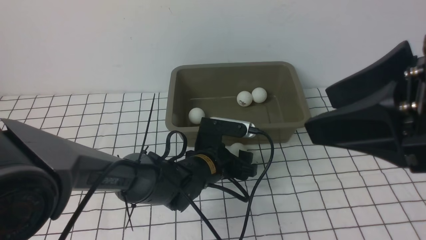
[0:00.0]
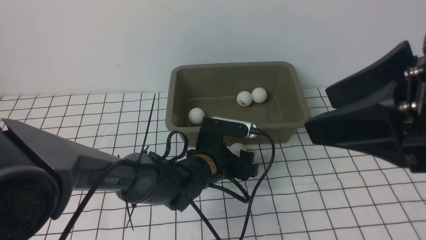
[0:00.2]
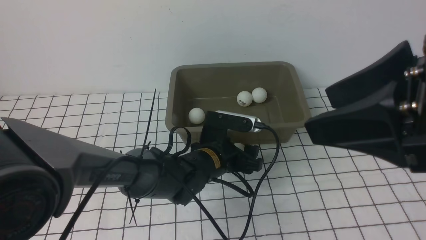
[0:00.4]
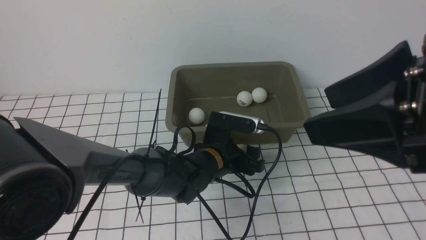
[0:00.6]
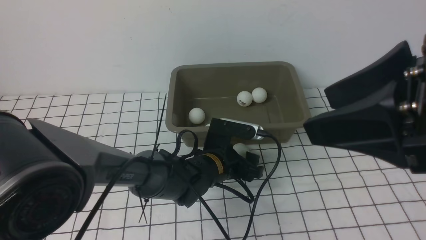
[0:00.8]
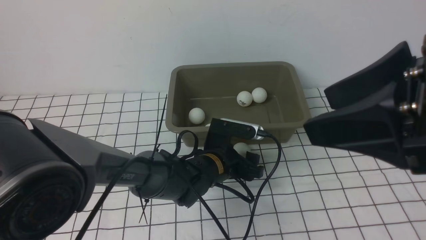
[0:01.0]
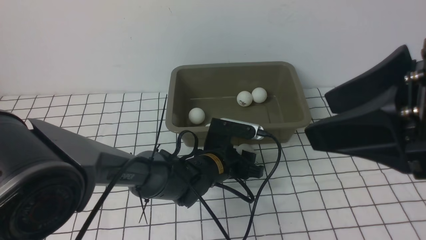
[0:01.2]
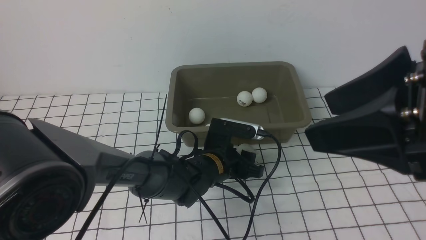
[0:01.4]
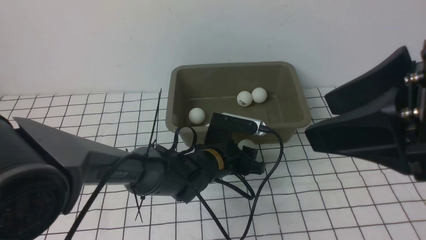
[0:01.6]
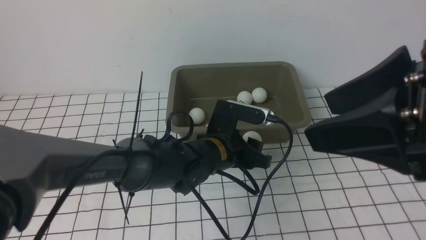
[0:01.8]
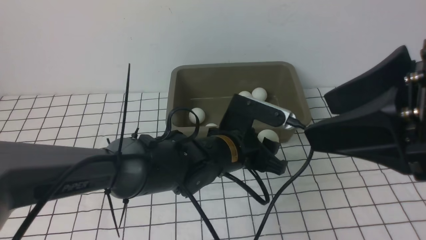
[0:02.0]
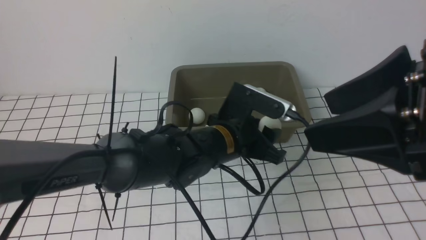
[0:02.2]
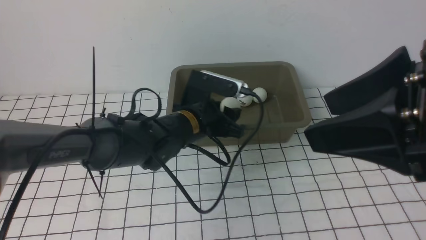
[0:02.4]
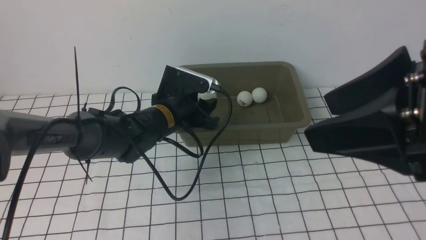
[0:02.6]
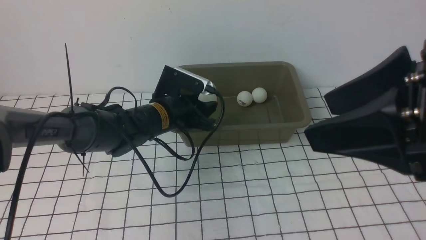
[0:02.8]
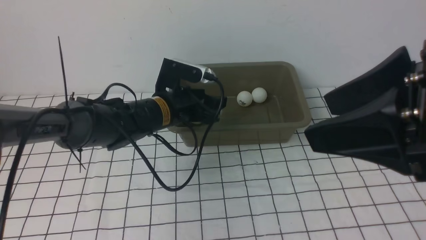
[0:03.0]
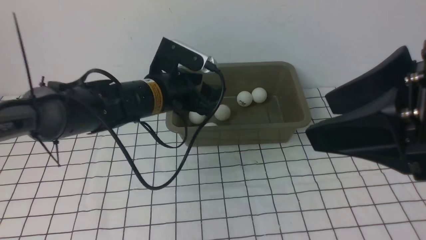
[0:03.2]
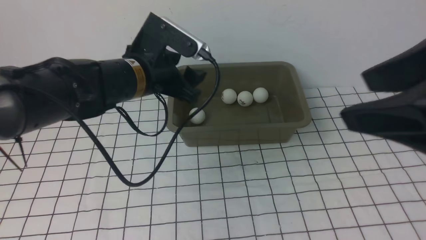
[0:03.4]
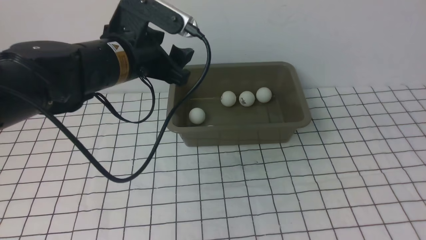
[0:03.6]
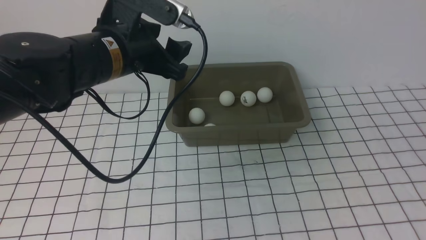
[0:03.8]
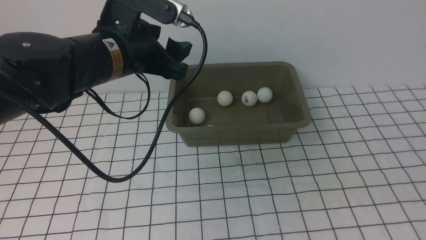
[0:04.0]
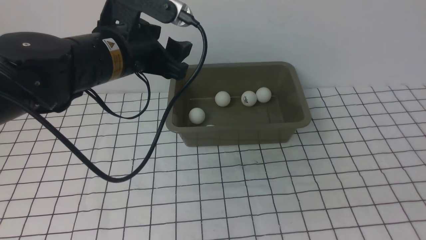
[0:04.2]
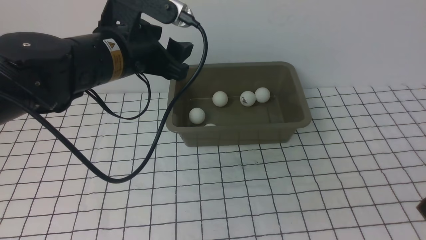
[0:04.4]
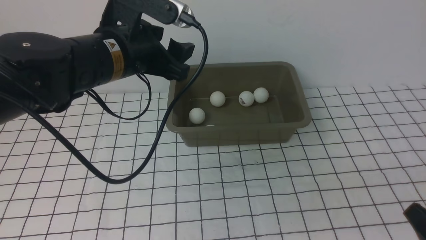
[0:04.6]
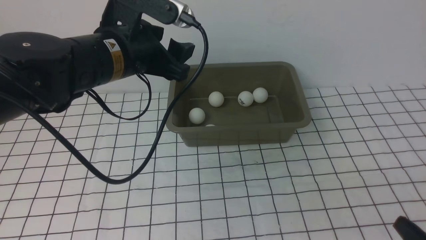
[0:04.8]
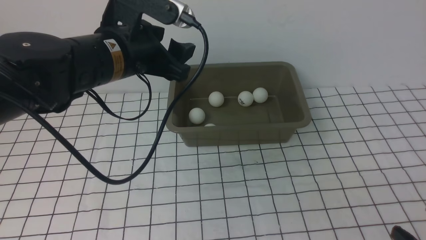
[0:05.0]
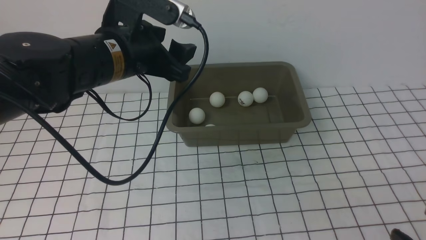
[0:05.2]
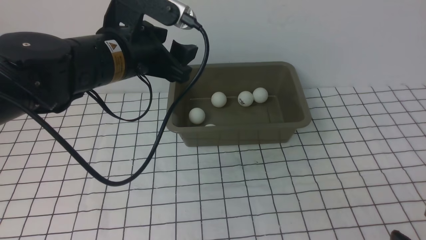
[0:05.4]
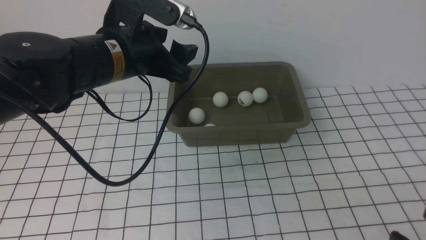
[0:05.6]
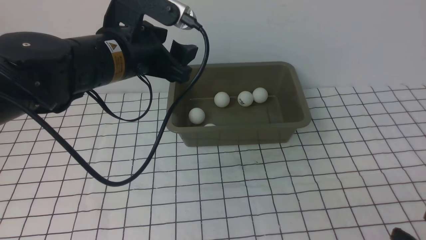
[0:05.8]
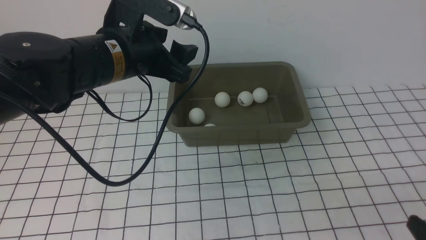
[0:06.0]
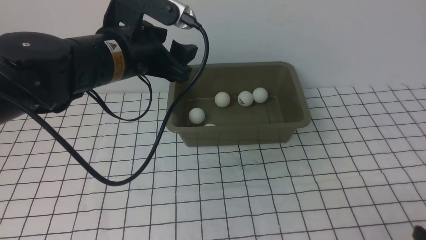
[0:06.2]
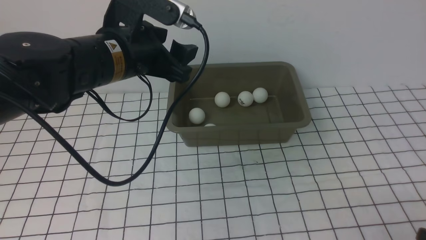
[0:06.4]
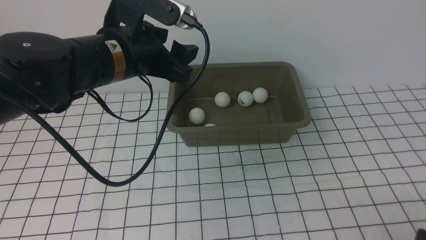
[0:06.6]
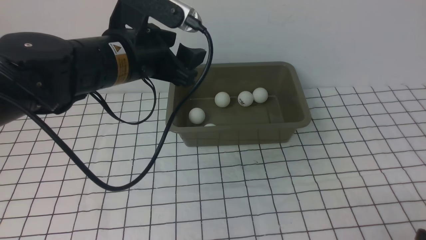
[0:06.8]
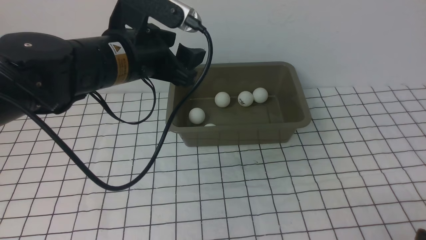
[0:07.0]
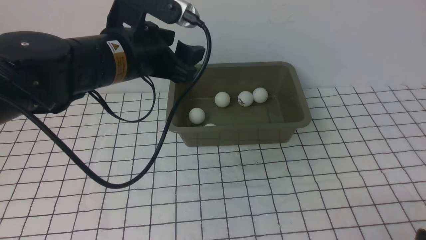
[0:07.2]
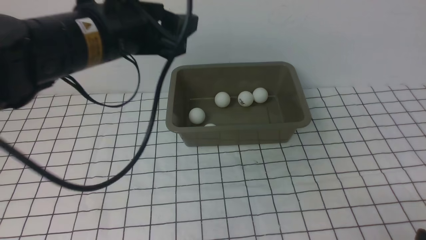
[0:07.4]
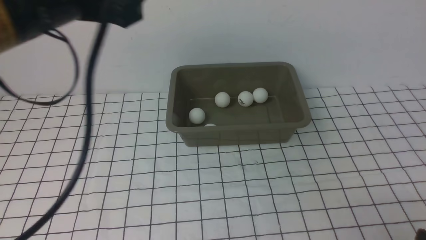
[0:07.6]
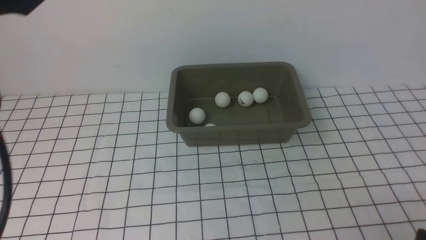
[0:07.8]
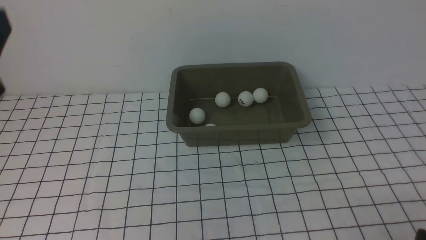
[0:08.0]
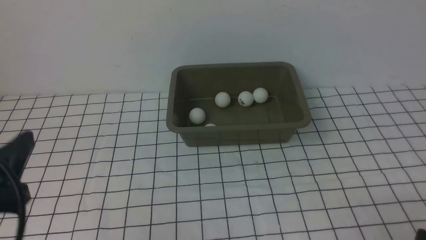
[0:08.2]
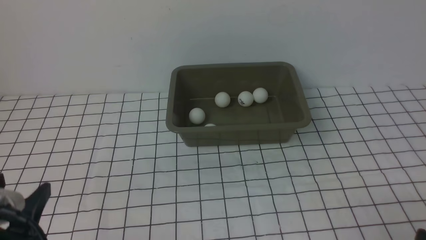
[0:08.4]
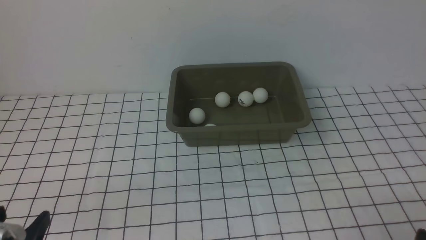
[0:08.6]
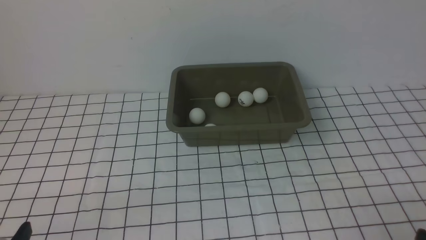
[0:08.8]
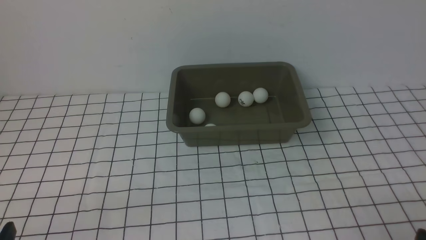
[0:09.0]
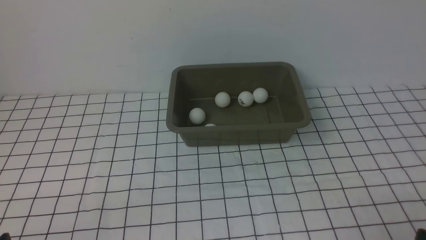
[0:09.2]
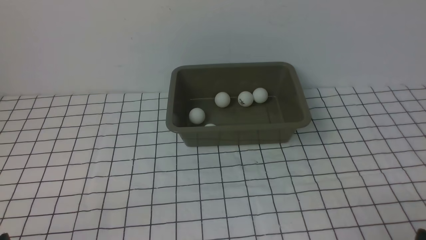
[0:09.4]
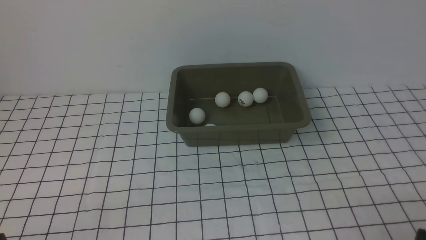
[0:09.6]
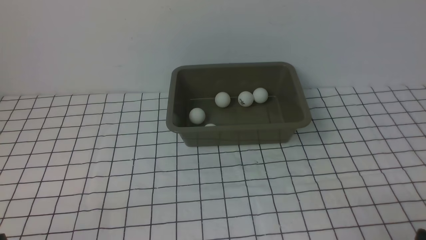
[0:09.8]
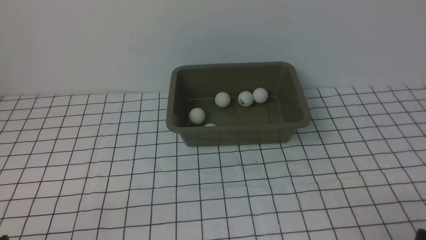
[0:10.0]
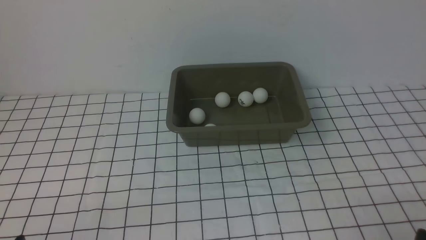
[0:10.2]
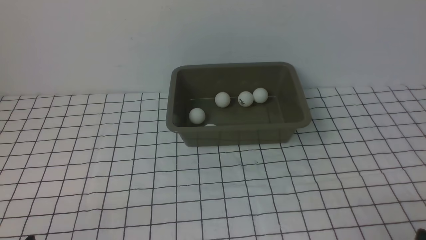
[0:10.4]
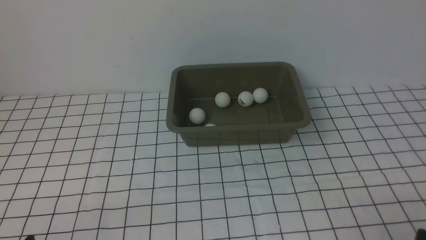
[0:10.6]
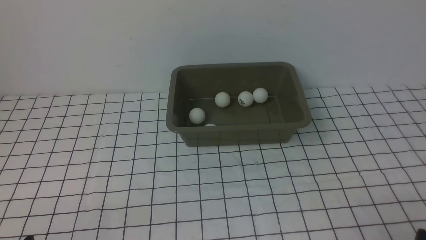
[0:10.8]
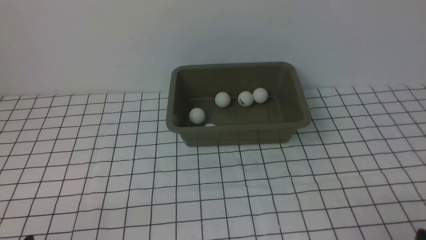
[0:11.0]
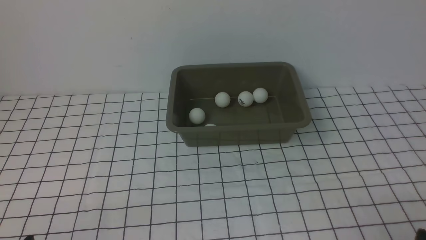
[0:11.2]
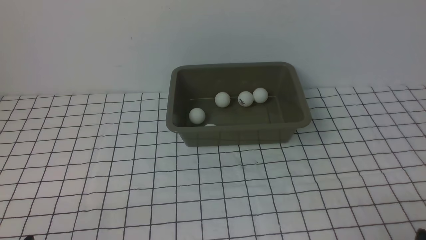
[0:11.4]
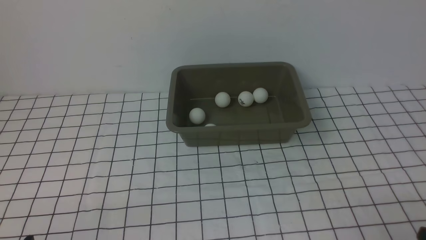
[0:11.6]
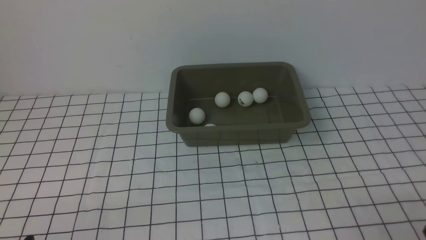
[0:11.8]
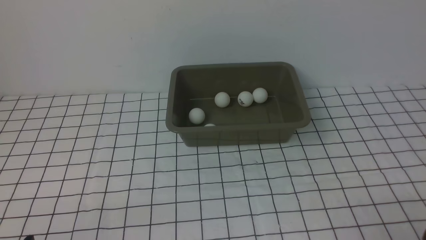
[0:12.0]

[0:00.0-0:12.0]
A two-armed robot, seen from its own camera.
Step, 0:02.0 to 0:03.0: use the left arm to put the table tennis ball into the box.
0:00.0 to 0:01.6: The left gripper closes.
0:01.6 to 0:03.0: The left gripper shifts roughly 15 cm to the left, upward and forward.
0:03.0 to 0:04.4: The left gripper shifts roughly 15 cm upward and backward. The right gripper is displaced downward, to the right and backward by about 20 cm.
0:04.4 to 0:06.0: The right gripper is displaced downward by roughly 5 cm.
0:06.0 to 0:07.6: The left gripper travels upward and backward by about 15 cm.
0:07.6 to 0:09.0: The left gripper moves downward, backward and to the left, roughly 30 cm.

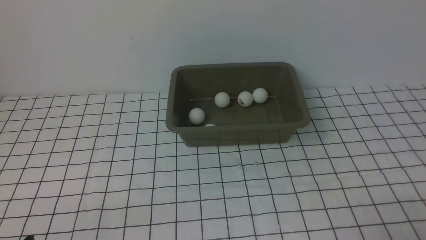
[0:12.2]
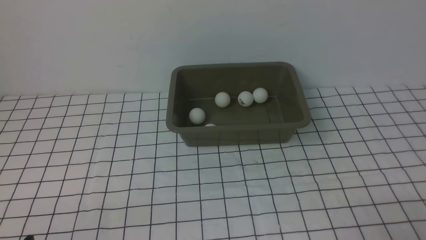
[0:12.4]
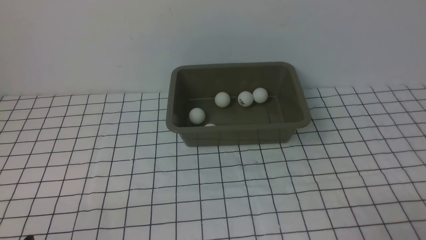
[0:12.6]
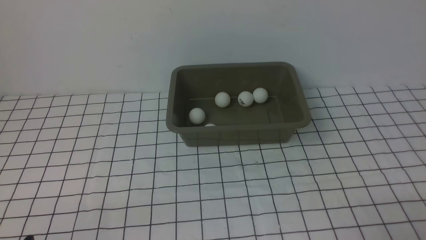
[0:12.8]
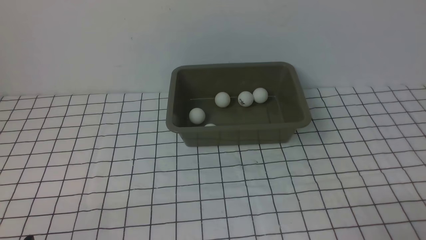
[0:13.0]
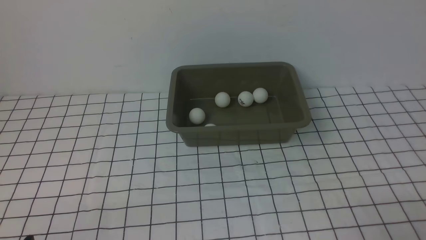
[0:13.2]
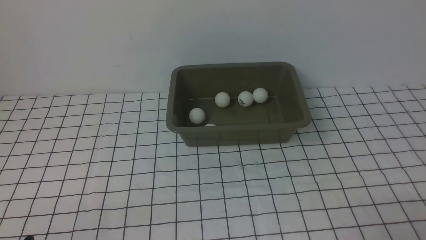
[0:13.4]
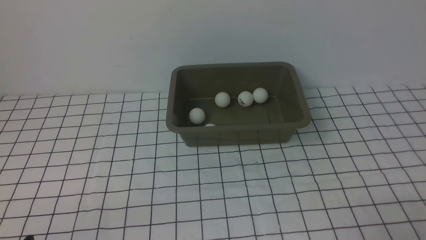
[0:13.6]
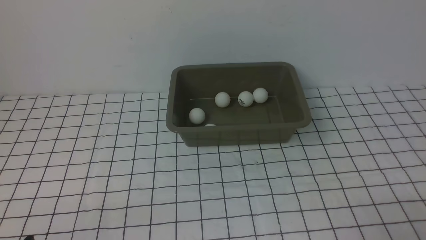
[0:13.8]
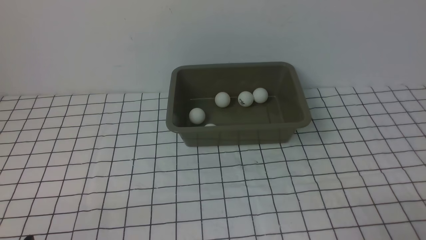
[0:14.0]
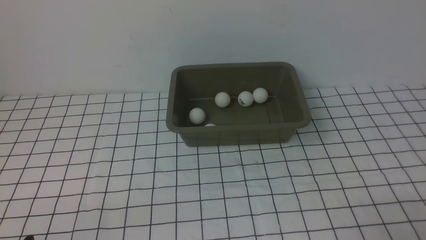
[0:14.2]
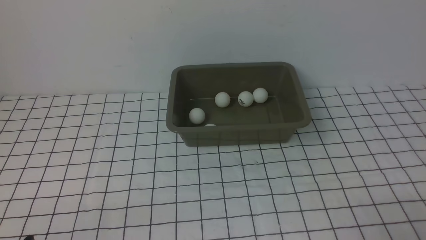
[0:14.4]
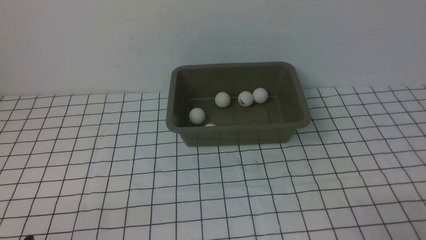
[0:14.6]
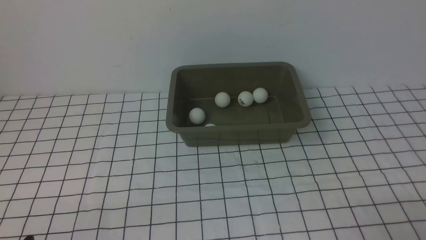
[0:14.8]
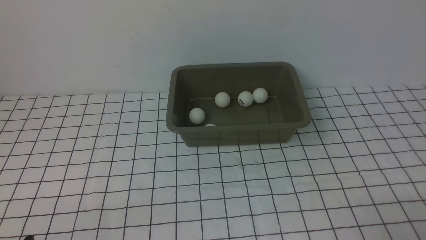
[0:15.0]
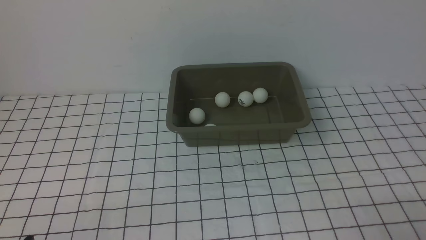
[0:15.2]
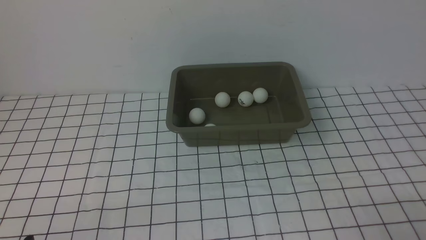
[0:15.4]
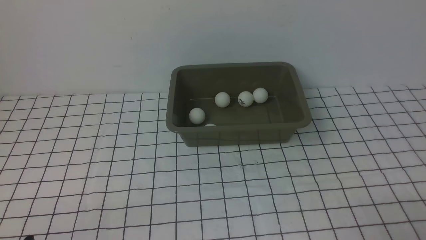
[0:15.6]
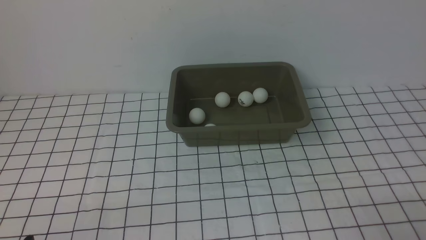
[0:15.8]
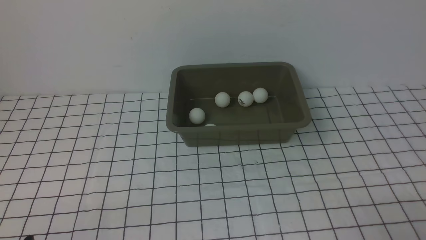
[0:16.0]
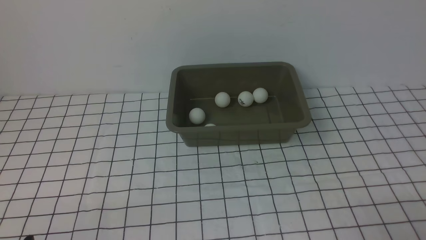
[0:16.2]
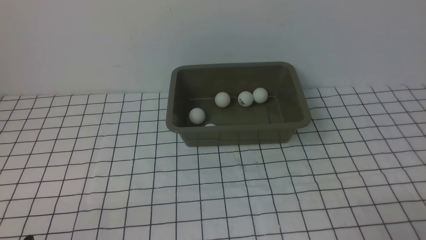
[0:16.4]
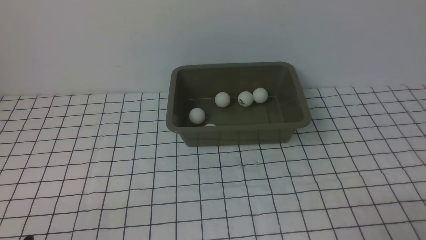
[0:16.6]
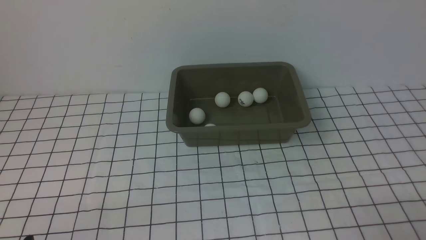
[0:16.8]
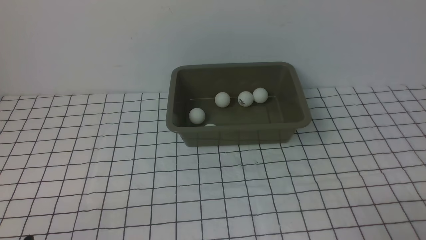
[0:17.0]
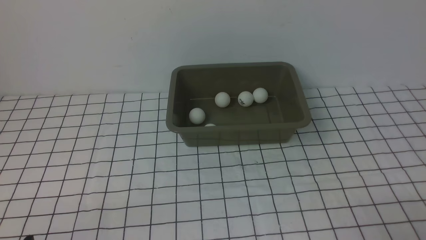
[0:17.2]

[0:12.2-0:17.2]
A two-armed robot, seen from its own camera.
0:12.2 to 0:17.2: Both grippers stay put.
